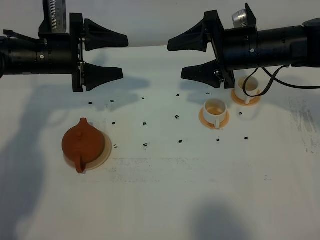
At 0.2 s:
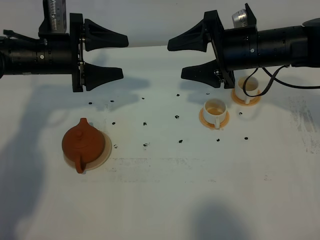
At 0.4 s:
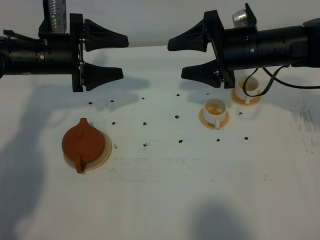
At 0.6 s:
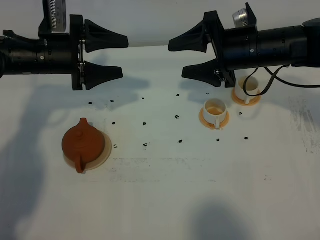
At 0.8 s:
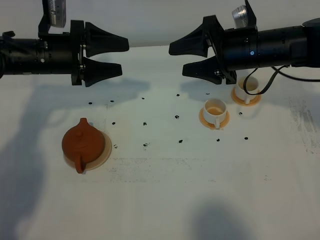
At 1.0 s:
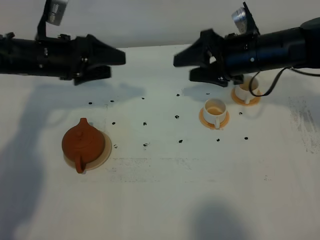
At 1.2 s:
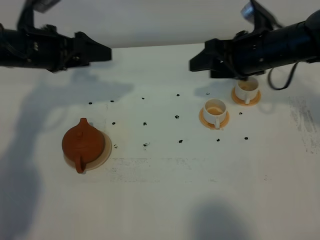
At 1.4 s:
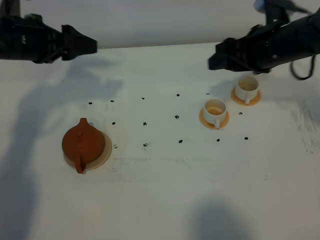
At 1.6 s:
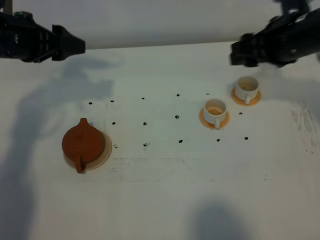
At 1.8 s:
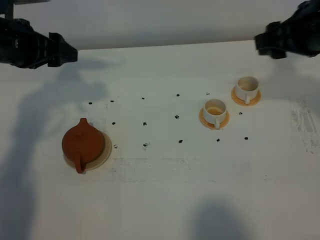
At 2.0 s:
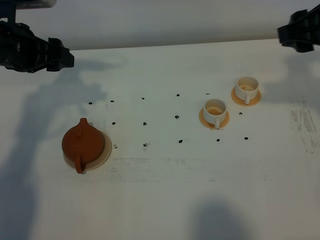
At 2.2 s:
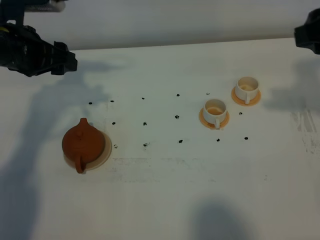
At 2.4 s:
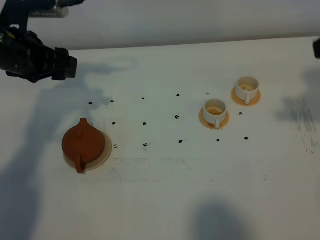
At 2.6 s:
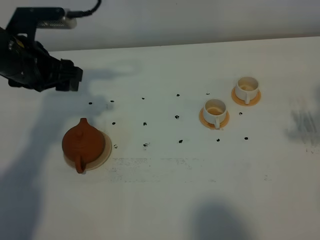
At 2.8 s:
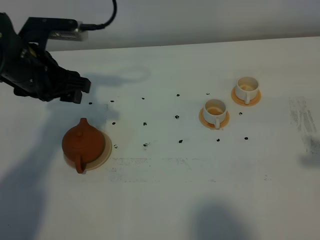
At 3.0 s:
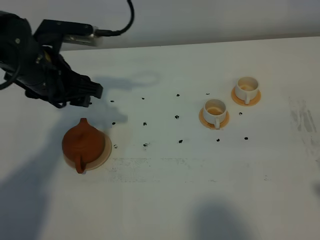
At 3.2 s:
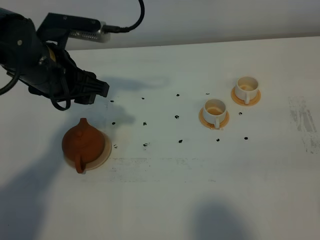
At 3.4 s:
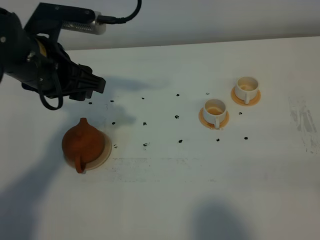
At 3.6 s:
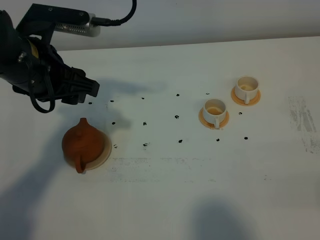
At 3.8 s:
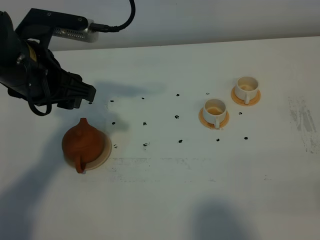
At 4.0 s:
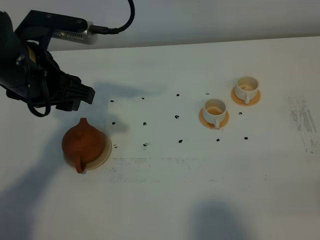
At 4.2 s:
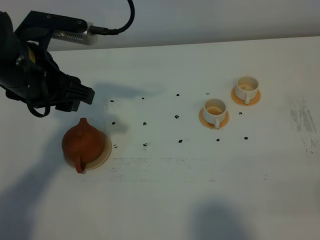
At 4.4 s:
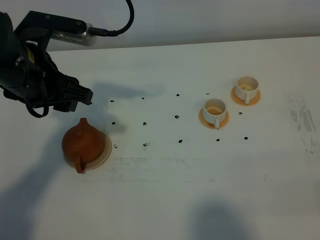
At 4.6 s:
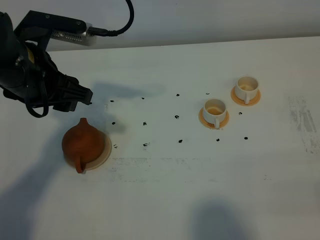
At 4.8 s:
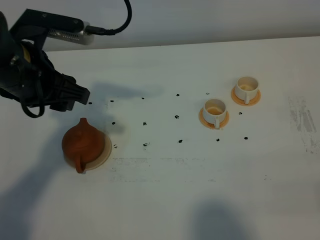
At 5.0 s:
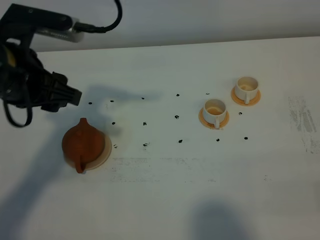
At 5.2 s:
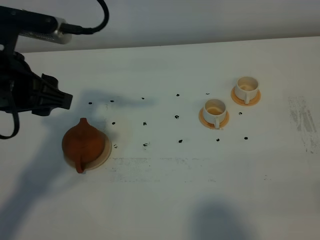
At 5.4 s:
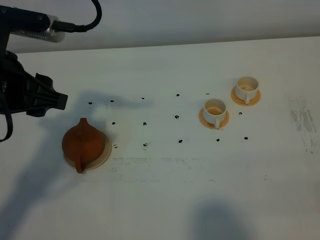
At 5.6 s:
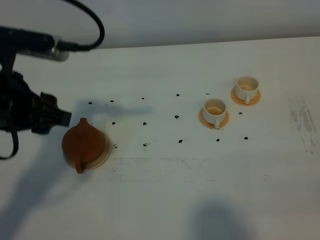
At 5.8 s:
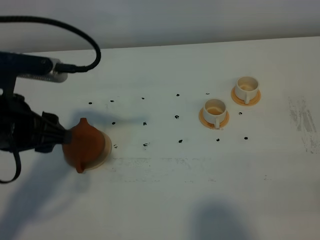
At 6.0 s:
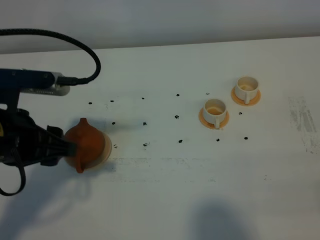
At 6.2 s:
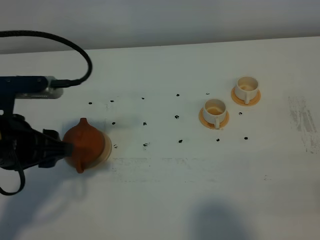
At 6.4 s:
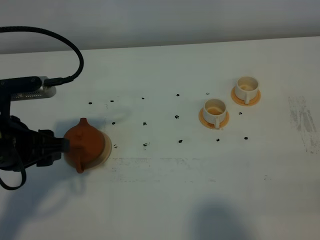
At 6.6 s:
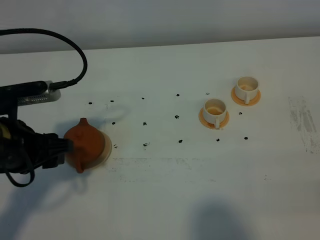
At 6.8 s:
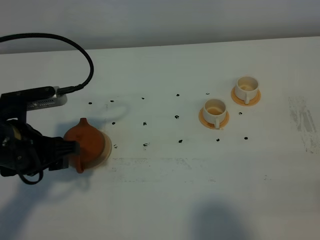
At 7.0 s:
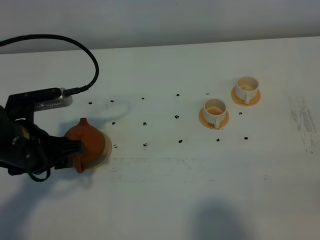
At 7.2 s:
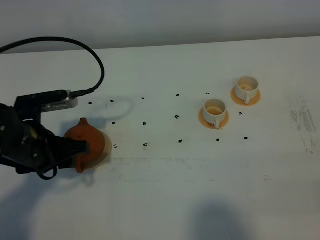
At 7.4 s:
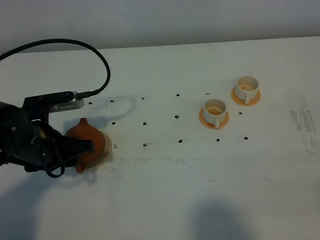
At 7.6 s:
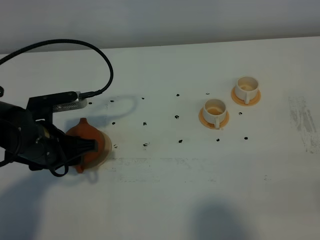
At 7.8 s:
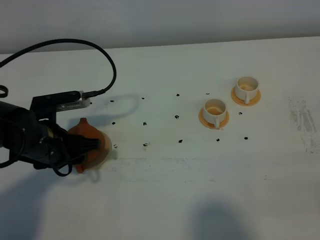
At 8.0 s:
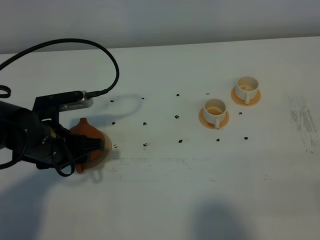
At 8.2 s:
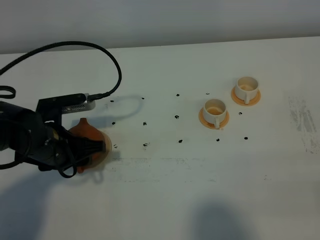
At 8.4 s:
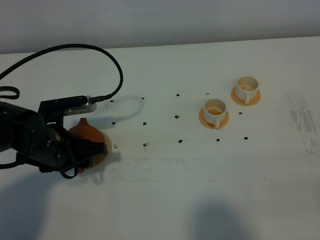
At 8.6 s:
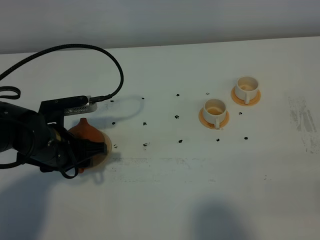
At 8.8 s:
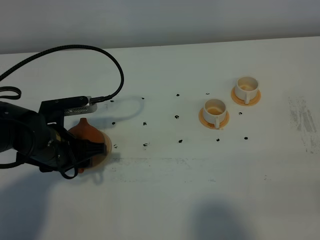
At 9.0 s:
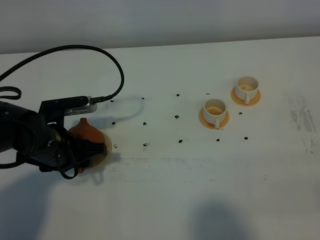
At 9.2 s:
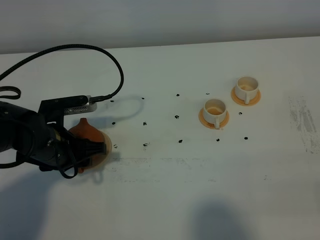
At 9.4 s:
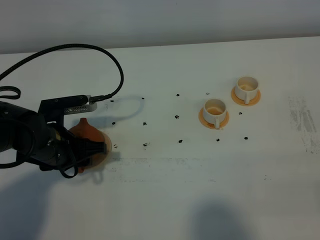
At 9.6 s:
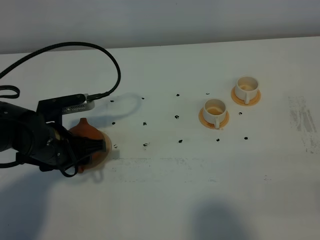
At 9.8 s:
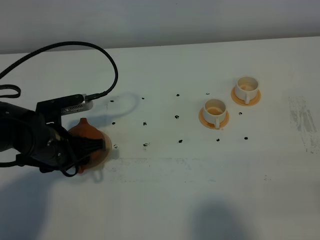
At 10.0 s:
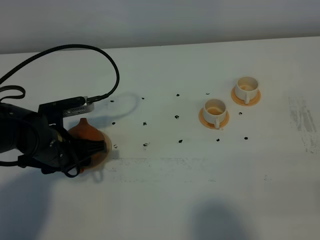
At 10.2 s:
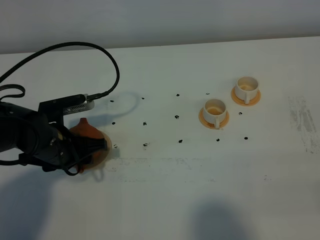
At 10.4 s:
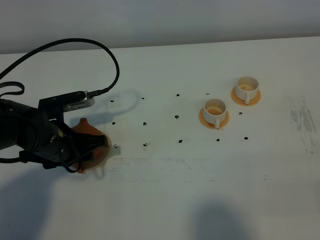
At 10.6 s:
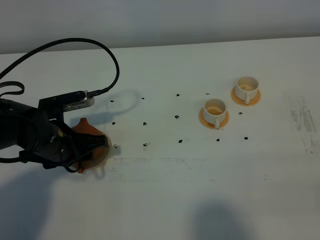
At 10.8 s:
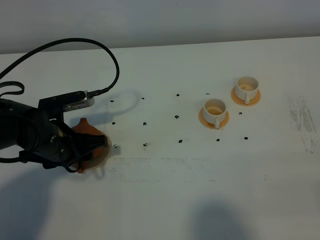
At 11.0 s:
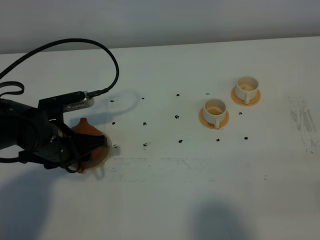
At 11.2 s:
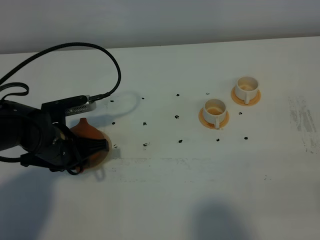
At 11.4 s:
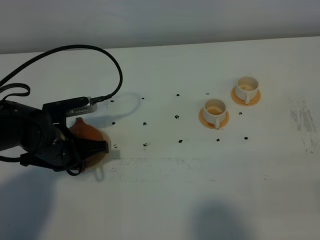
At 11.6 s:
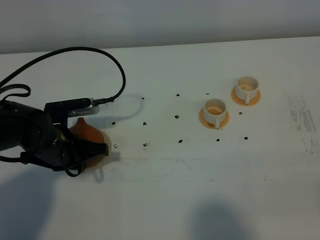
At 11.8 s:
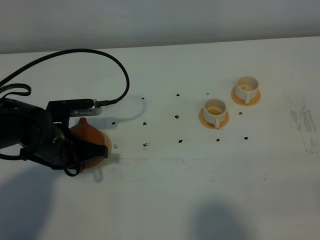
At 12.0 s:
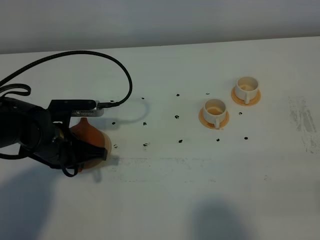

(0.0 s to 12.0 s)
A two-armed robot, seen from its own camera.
Task of the whole recording: grasp the brown teapot and pour the tea into the two white teacups one by one, put the brown teapot back in its original place.
0.0 s - 1.6 s: The right gripper moves to the right, approximately 5 cm, while the left gripper is displaced upward by some 5 cm.
1.6 s - 3.0 s: The left gripper heads to the right, covering about 5 cm, while the right gripper travels backward by roughly 25 cm.
3.0 s - 4.4 s: The left gripper shifts by roughly 5 cm.
4.4 s - 6.0 s: The left gripper shifts some 10 cm backward.
6.0 s - 7.6 s: The left gripper heads downward and forward, covering roughly 10 cm.
7.6 s - 10.4 s: There are only small adjustments of the grippers.
10.4 s - 12.0 s: The left gripper closes.

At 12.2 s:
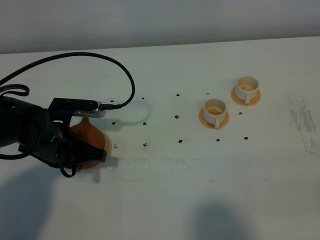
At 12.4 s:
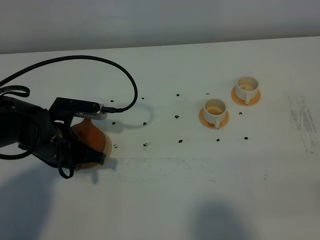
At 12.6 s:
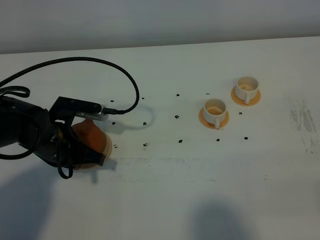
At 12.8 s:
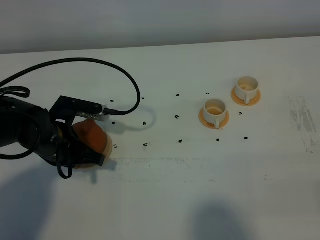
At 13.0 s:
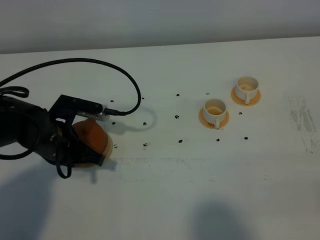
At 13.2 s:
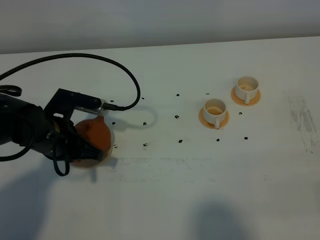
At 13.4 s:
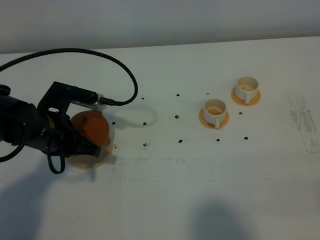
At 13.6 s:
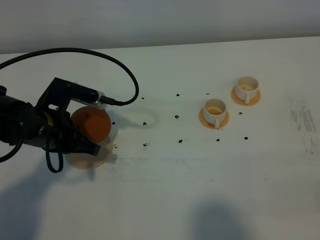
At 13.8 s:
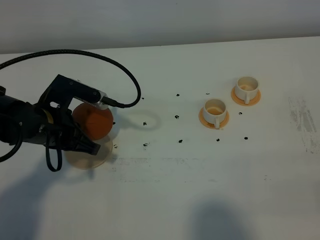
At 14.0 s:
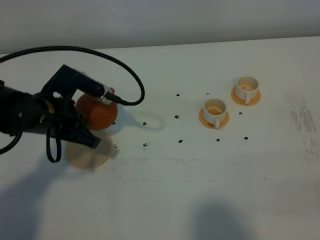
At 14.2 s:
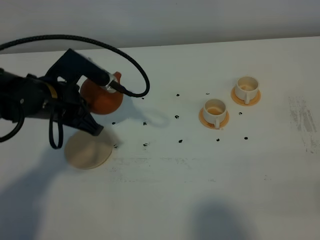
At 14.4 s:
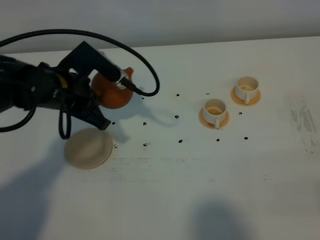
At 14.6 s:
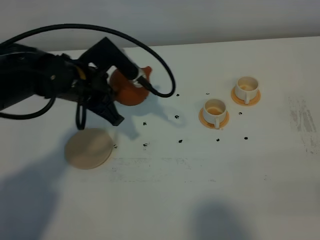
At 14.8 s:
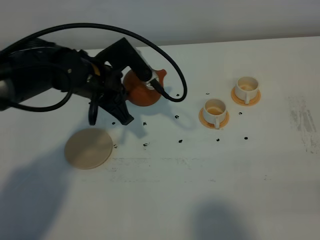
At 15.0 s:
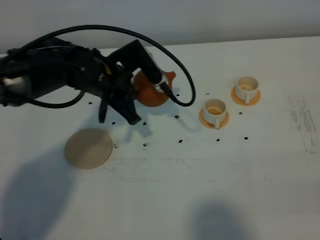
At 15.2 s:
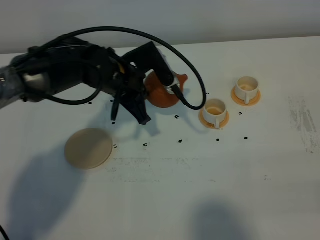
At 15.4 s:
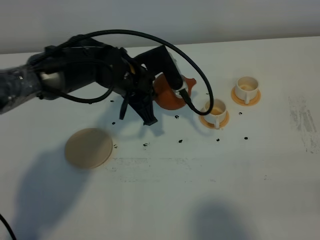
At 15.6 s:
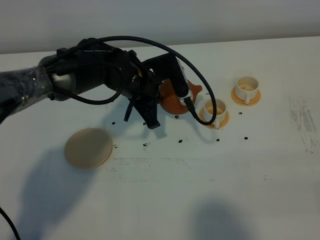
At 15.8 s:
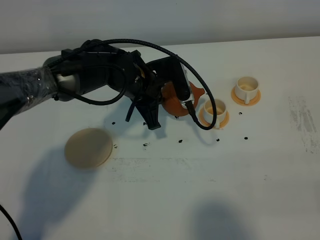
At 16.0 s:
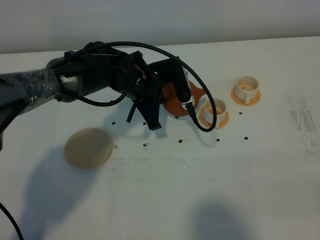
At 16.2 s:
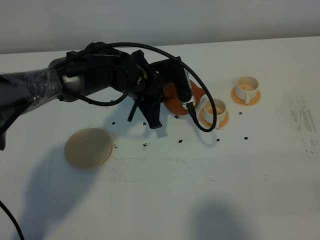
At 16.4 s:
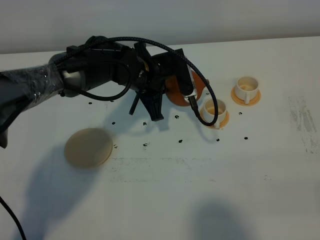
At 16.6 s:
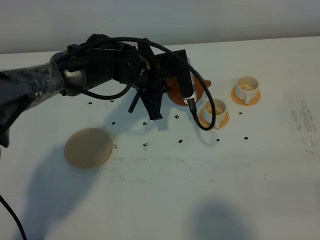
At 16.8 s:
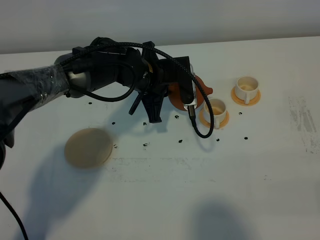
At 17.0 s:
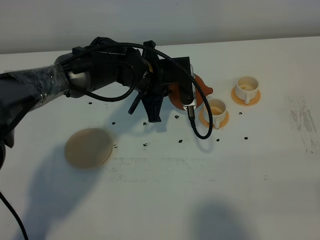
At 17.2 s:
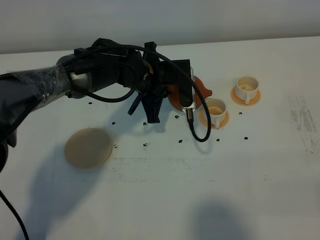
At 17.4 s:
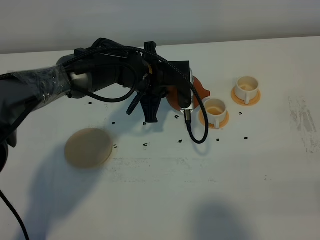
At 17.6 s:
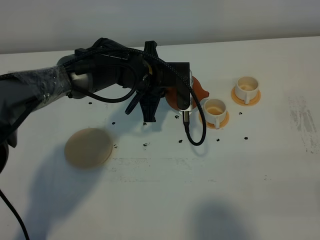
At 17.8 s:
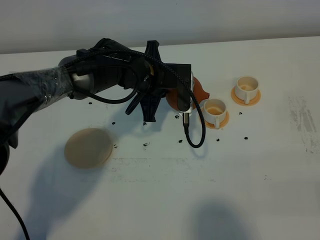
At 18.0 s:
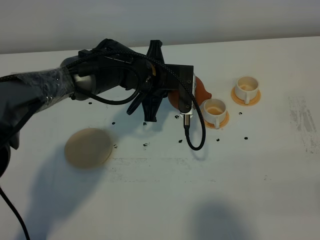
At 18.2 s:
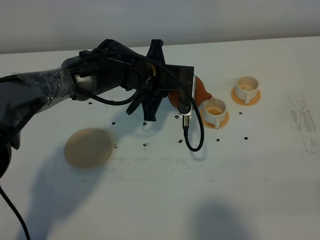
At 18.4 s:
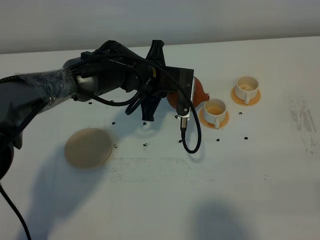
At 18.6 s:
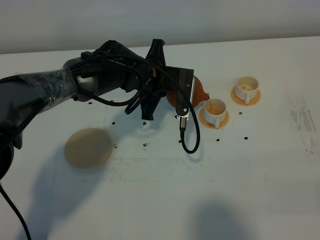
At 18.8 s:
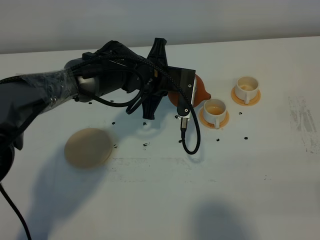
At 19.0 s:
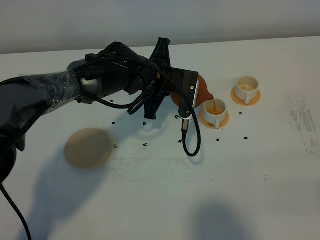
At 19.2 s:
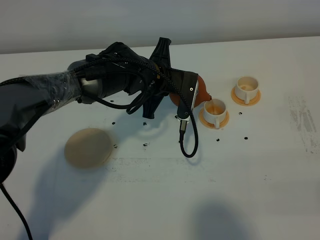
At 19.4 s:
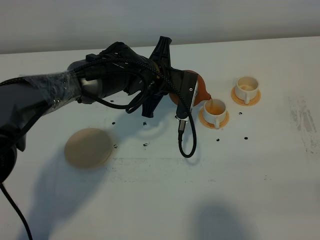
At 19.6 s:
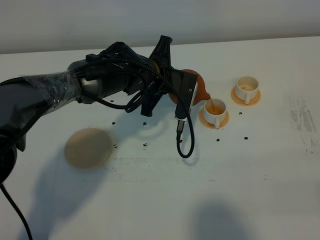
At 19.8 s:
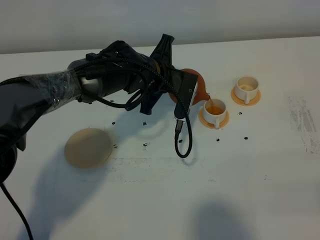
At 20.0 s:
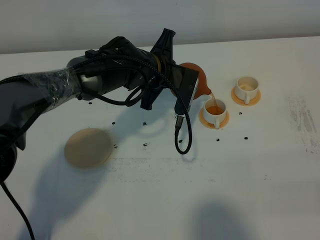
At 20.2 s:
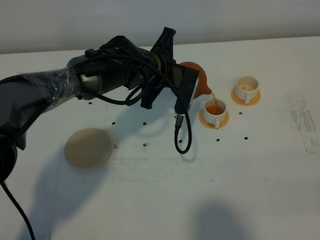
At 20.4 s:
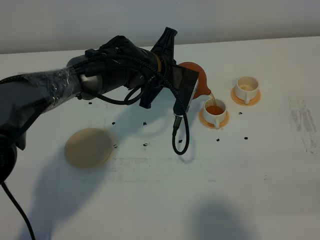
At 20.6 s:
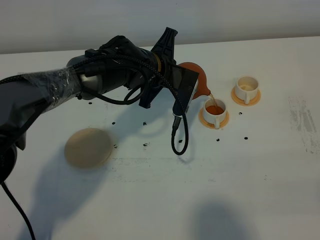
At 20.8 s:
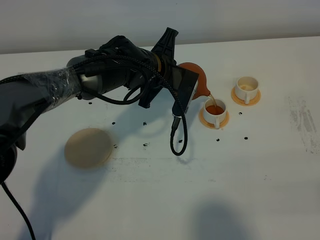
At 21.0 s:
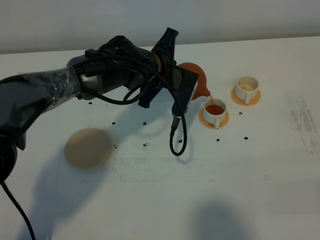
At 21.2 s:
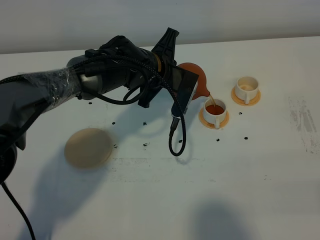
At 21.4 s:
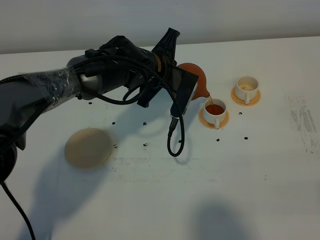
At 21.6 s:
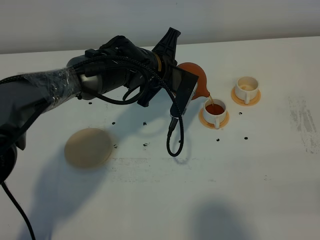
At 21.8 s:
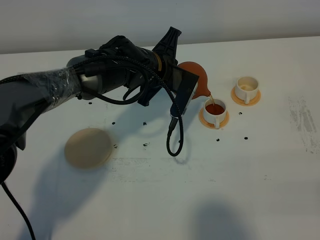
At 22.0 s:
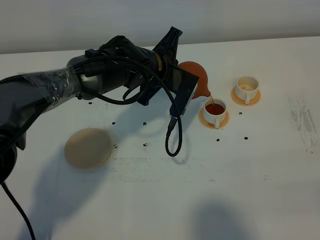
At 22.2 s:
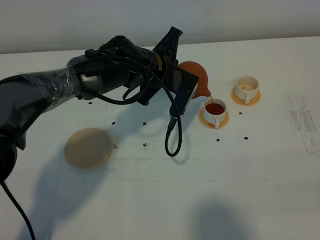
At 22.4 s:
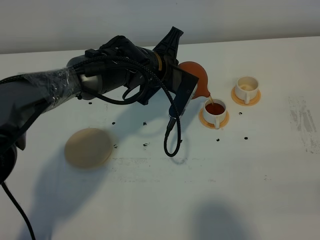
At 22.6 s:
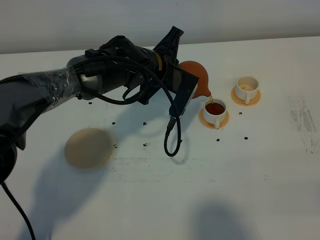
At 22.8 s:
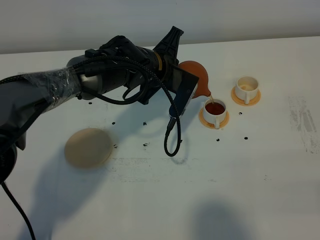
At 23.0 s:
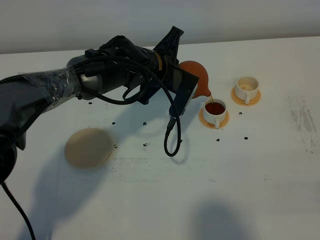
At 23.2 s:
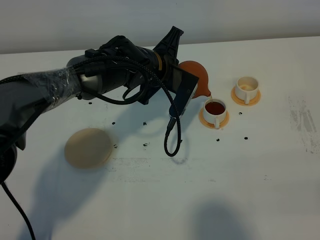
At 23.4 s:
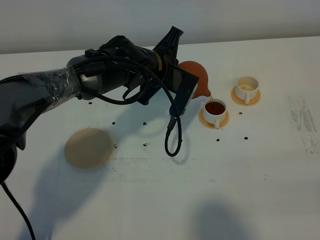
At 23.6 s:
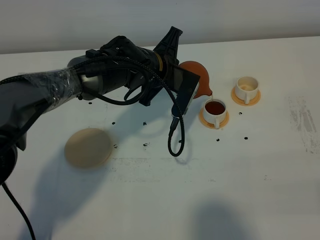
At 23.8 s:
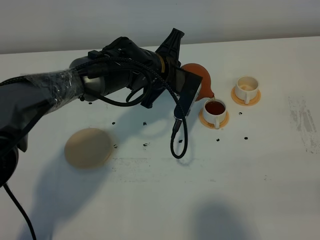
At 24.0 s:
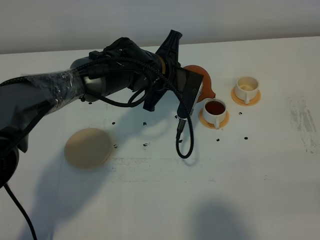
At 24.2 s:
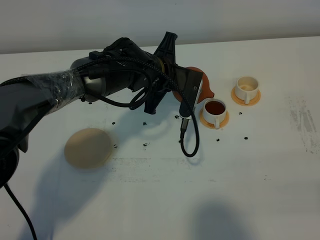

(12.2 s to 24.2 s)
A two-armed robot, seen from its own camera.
Task of the whole recording: grasp the brown teapot and pour the tea into the two white teacups one by one, put the brown teapot back in its original place.
13.8 s - 15.2 s: The left gripper is displaced to the right and forward by about 15 cm.
15.2 s - 16.6 s: The grippers make only small movements.
16.6 s - 18.2 s: The grippers make only small movements.
18.2 s - 19.8 s: The grippers move only a little.
19.8 s - 24.2 s: The grippers move only a little.
